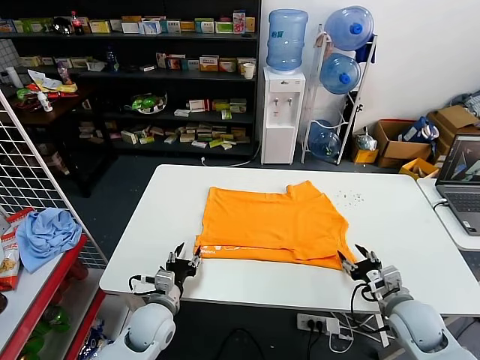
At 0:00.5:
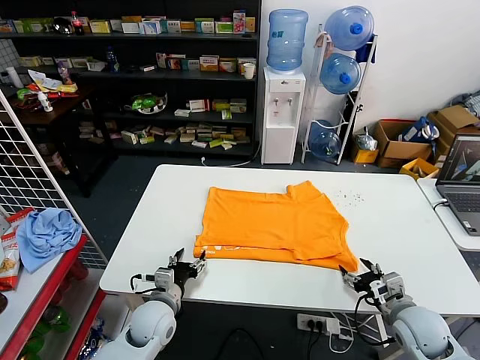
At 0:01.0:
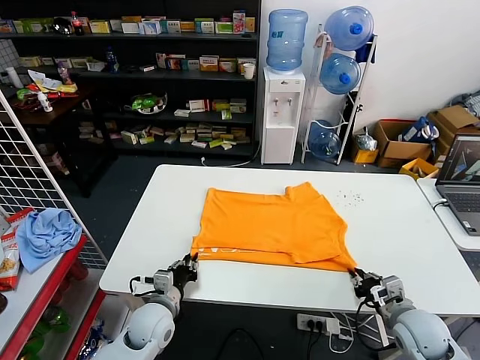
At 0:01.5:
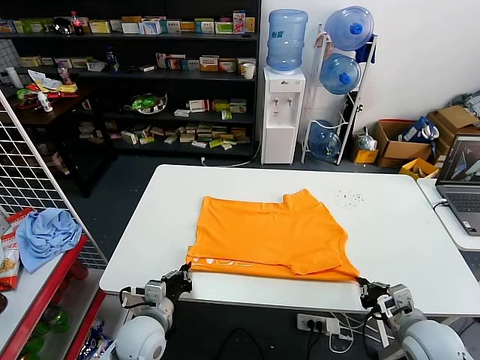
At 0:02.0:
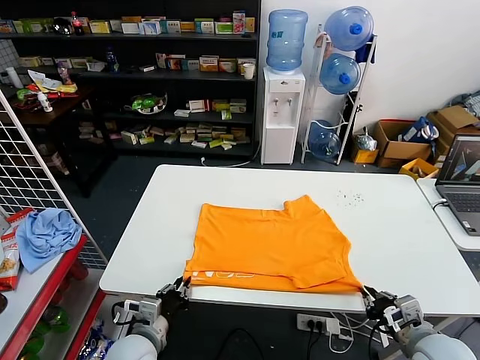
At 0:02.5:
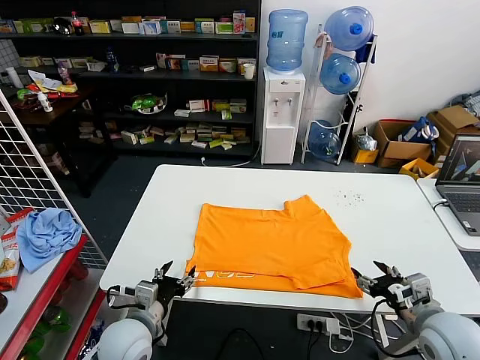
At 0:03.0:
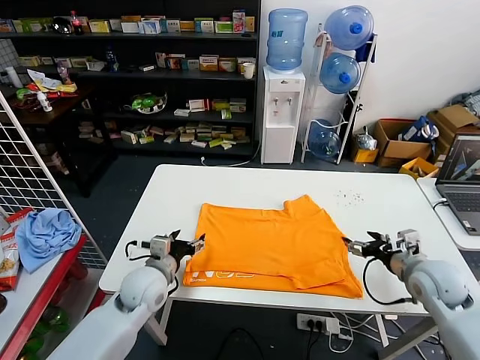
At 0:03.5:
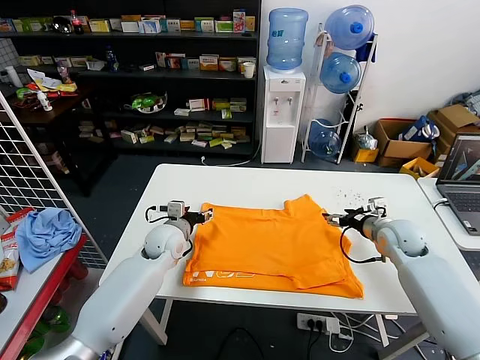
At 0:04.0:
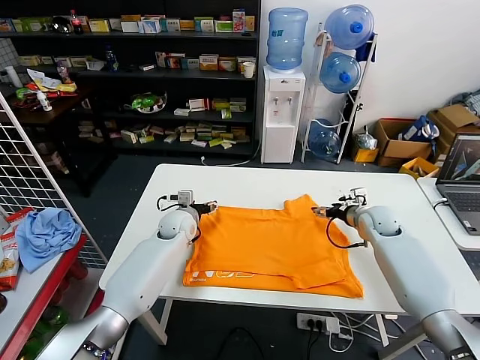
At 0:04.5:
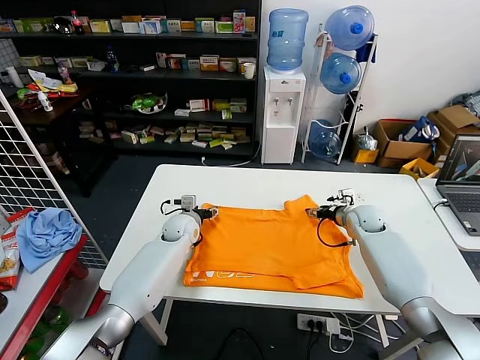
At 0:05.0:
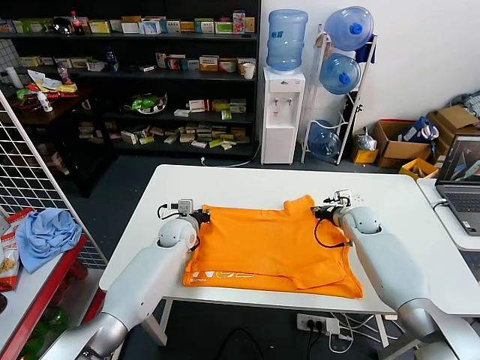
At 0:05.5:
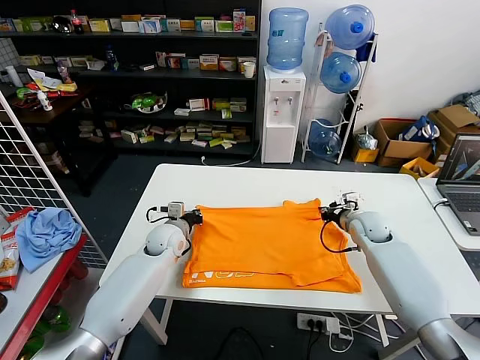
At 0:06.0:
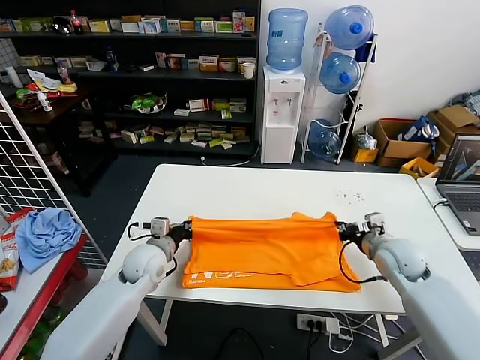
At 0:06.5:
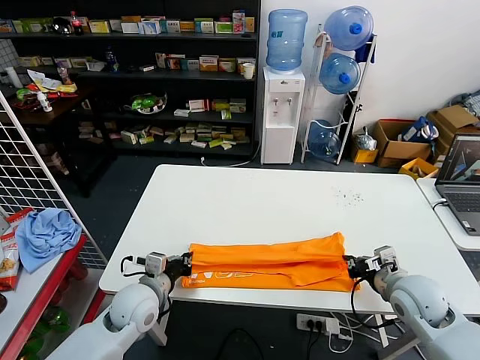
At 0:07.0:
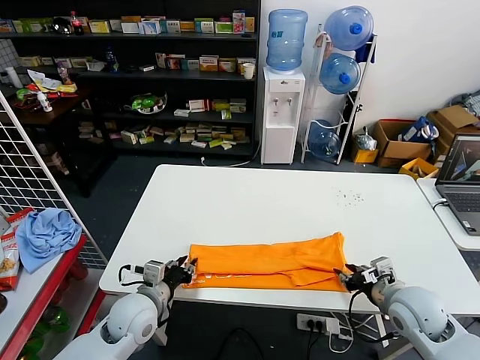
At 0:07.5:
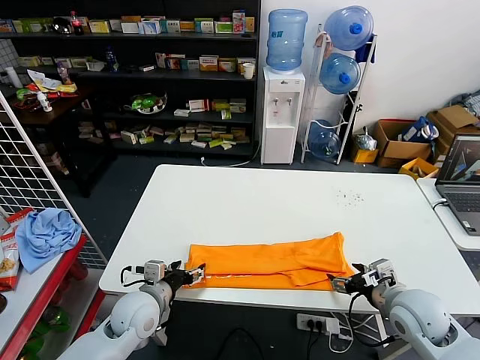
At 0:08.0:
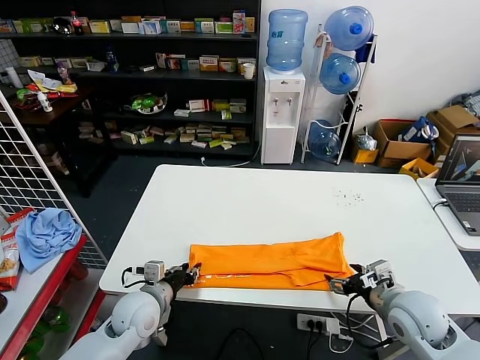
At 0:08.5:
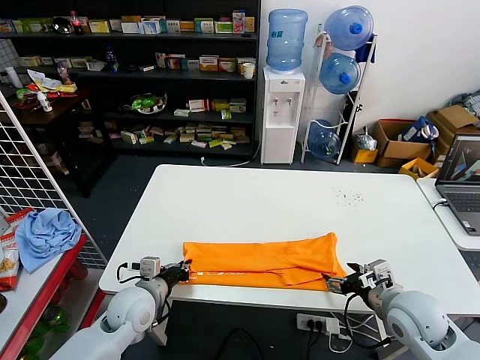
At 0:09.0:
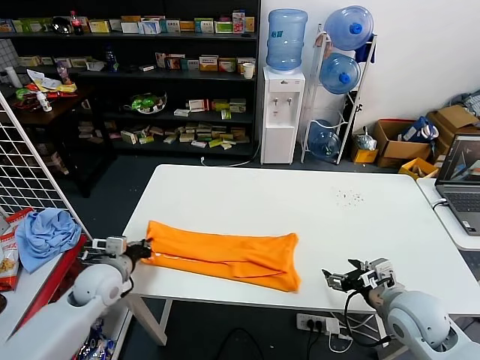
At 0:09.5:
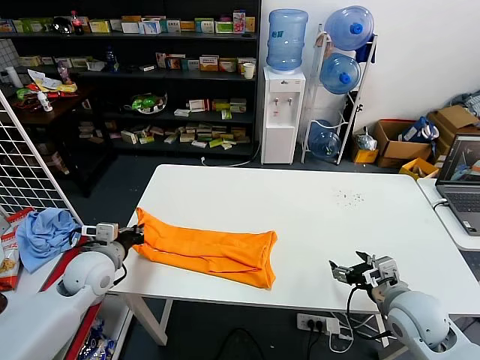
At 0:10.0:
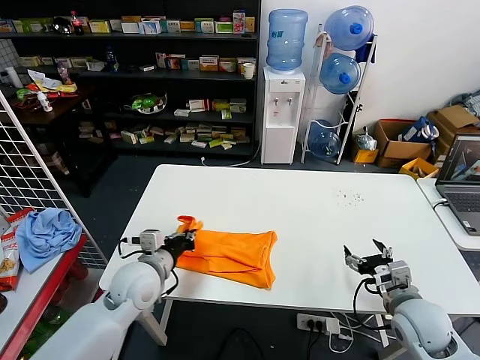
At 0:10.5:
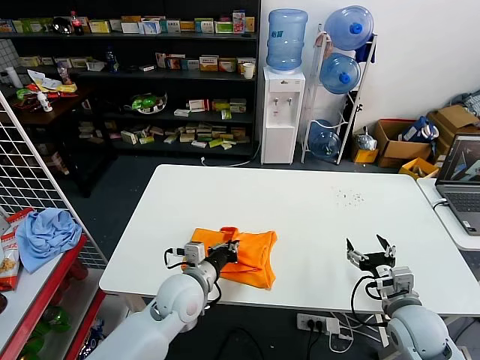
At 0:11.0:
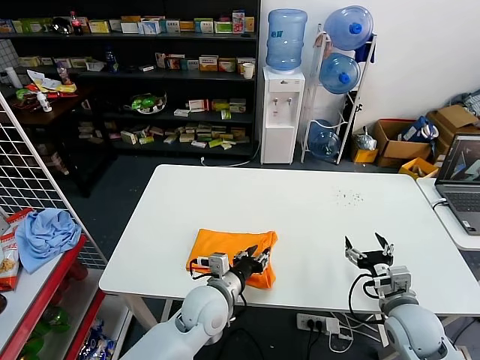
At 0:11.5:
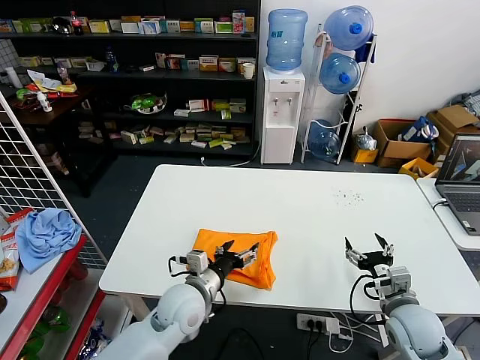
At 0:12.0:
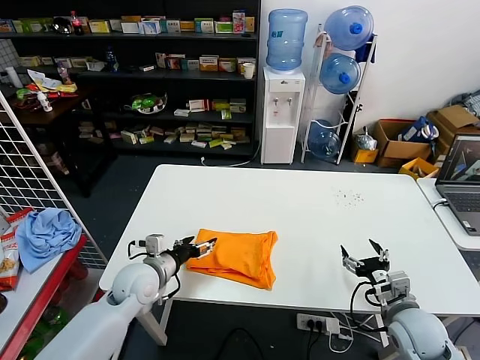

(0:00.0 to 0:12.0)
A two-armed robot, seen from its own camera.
Task of the whole recording: fold and organize the clothes.
Step, 0:00.0 - 0:02.0: Drag the clothes downward with both gripper.
Step, 0:02.5 - 0:05.0: use both grippers simultaneously to clamp the upper edge of the clothing fabric.
Step, 0:05.5 - 0:07.0: use both grippers to drag the upper edge of the fabric backward and fold it over the lower edge.
Step, 0:07.5 - 0:08.5: use the left gripper to clamp the left edge of the fabric.
Step, 0:09.0 - 0:11.0: use the left gripper to drag the left edge of the fabric to the left and folds it over the right edge.
0:00.0 - 0:02.0: Both grippers travel together backward, approximately 5 cm. The right gripper closes, while the left gripper closes.
0:02.0 - 0:04.0: Both grippers travel together forward, about 30 cm. The right gripper opens. The left gripper opens.
0:04.0 - 0:06.0: The left gripper is displaced backward and to the left by some 10 cm, and closes its fingers, while the right gripper travels backward by some 15 cm, and closes its fingers.
0:06.0 - 0:08.0: The two grippers go approximately 10 cm backward. The left gripper opens its fingers. Meanwhile the right gripper opens its fingers.
0:08.0 - 0:10.0: The left gripper goes approximately 5 cm upward, travels to the left and back again, about 10 cm each way, and closes up.
0:10.0 - 0:12.0: The left gripper goes to the right and returns, roughly 15 cm each way, and opens.

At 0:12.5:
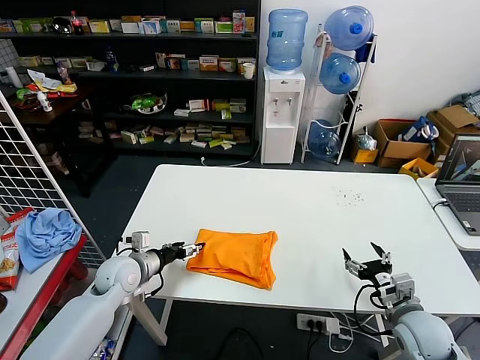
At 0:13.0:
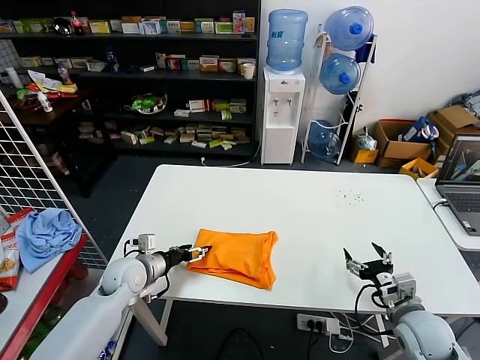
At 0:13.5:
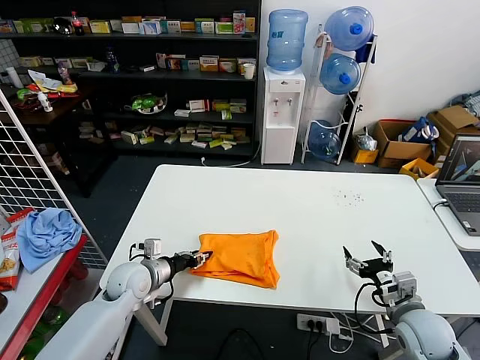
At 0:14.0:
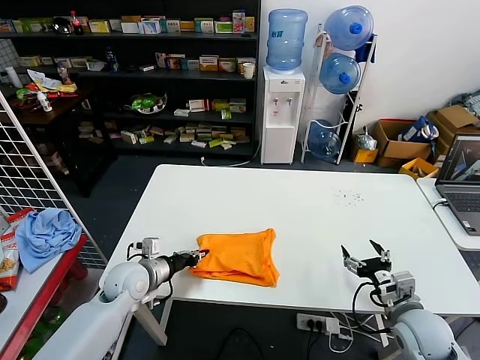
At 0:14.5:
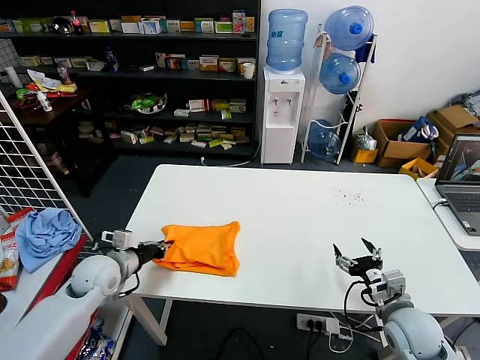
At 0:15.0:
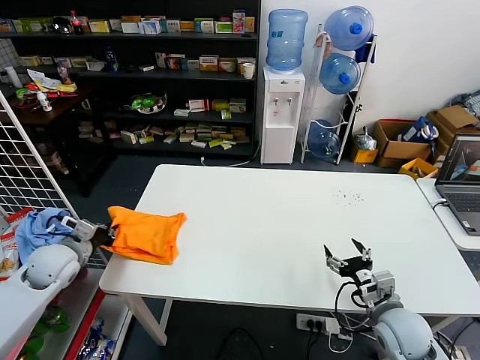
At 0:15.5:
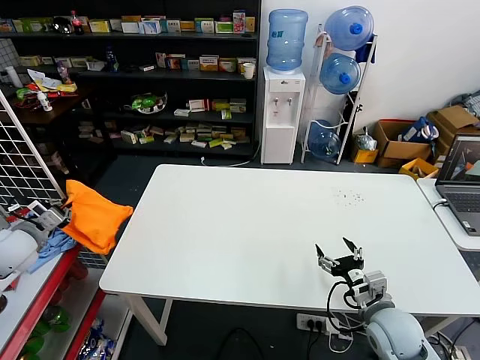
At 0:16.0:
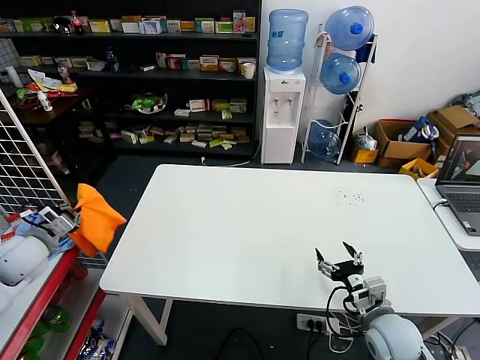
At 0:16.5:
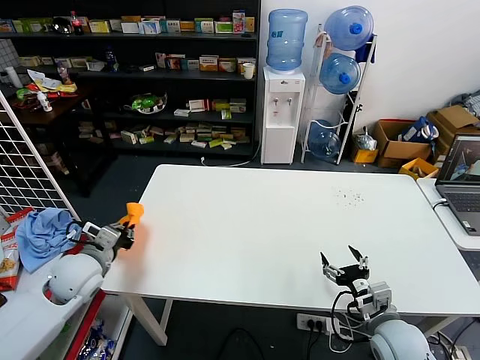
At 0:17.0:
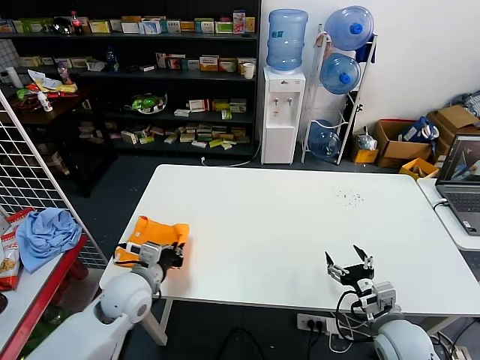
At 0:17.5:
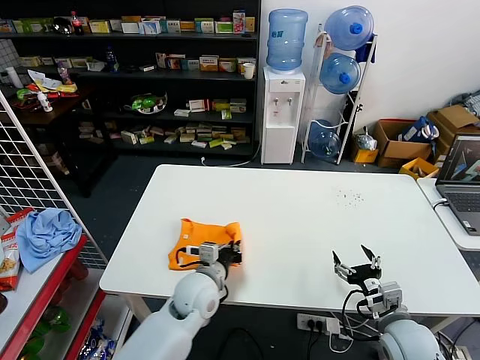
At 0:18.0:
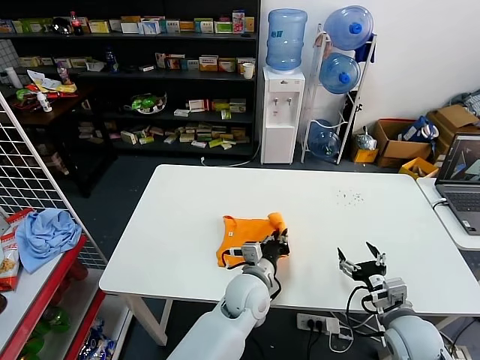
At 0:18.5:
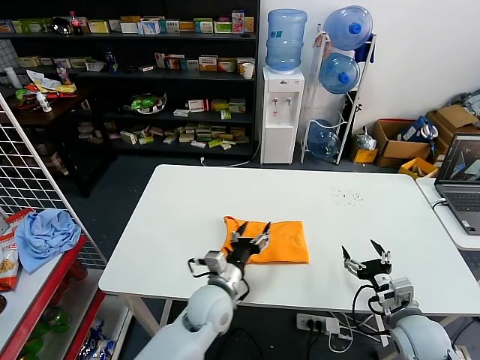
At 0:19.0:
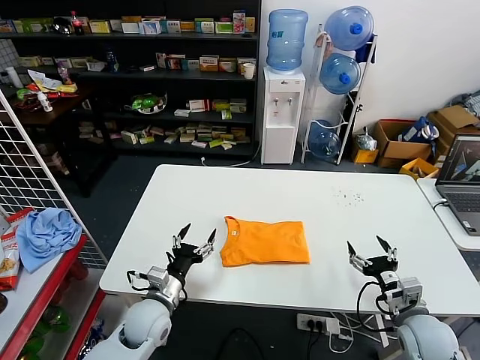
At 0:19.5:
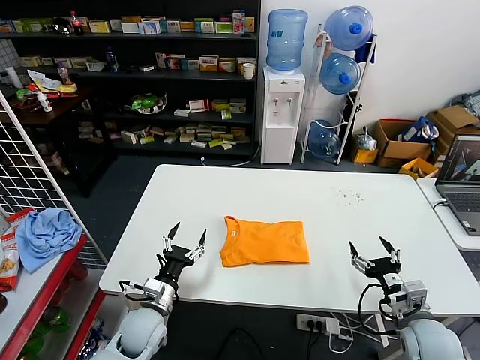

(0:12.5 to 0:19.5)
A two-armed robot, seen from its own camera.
Task of the whole recording: fold and organize the clothes.
Step, 0:12.5 - 0:18.0: Flip the folded clothes over with left gripper.
0:12.5 - 0:14.5: The left gripper closes its fingers.
0:14.5 - 0:16.0: The left gripper moves to the left and upward, about 20 cm.
0:16.0 - 0:17.5: The left gripper moves to the right, about 35 cm.
0:17.5 - 0:19.5: The left gripper moves to the left and downward, approximately 10 cm, and opens its fingers.
